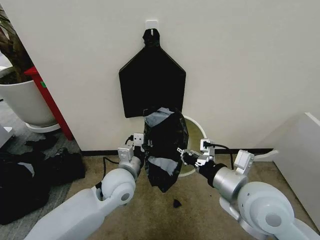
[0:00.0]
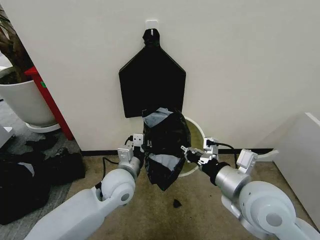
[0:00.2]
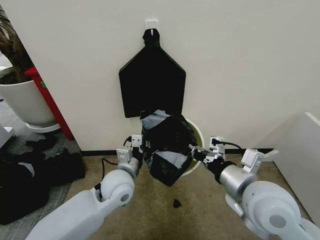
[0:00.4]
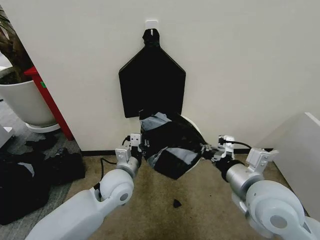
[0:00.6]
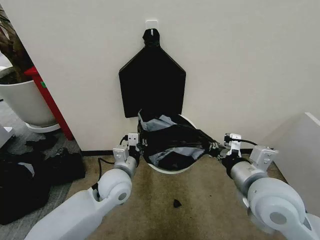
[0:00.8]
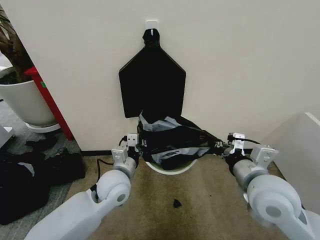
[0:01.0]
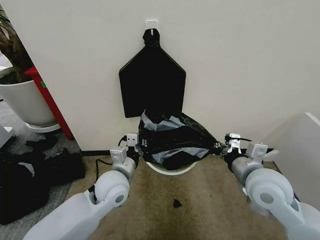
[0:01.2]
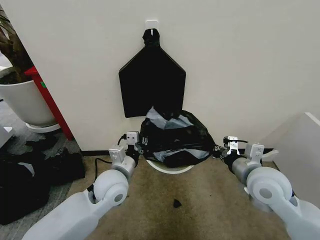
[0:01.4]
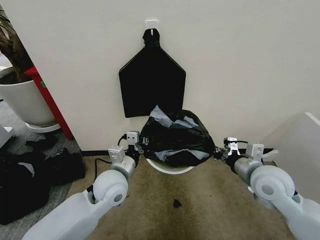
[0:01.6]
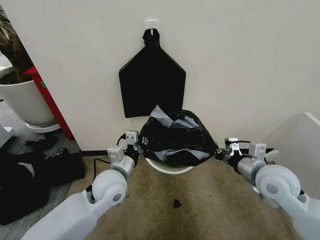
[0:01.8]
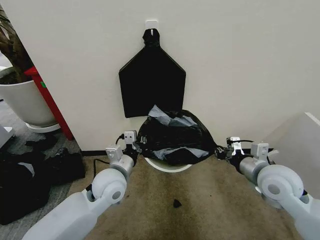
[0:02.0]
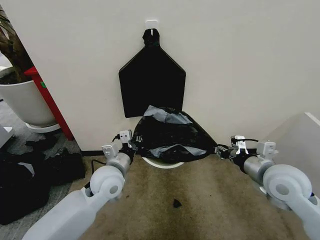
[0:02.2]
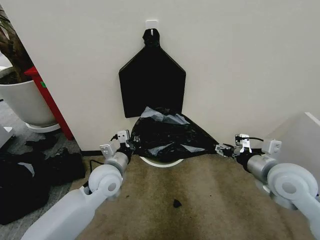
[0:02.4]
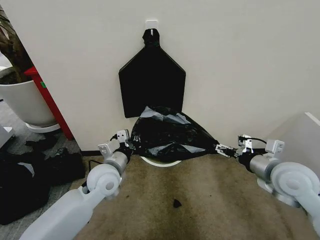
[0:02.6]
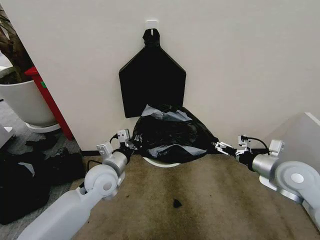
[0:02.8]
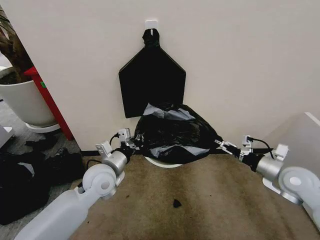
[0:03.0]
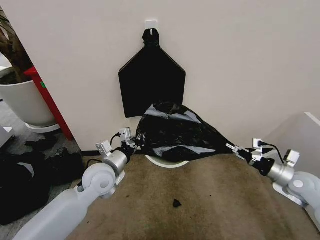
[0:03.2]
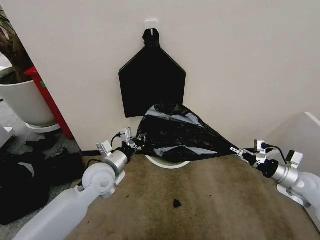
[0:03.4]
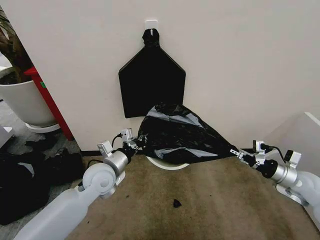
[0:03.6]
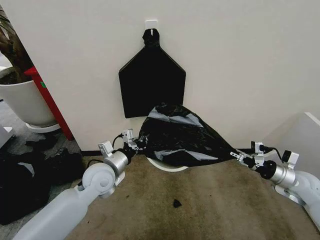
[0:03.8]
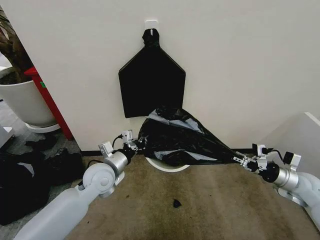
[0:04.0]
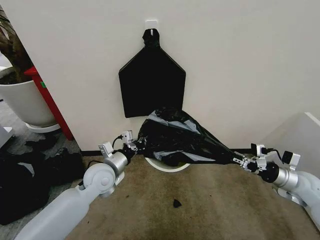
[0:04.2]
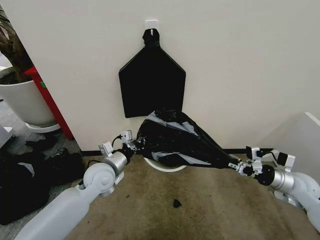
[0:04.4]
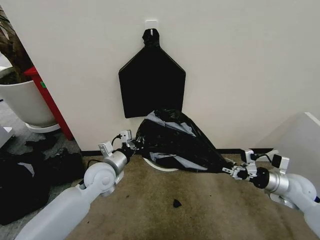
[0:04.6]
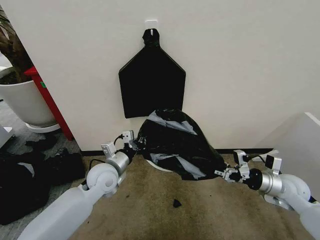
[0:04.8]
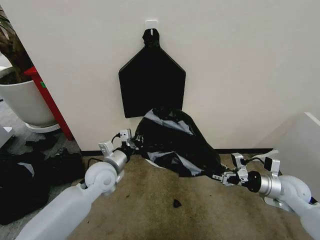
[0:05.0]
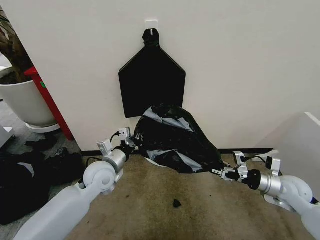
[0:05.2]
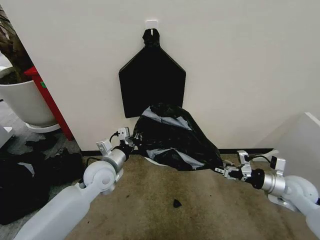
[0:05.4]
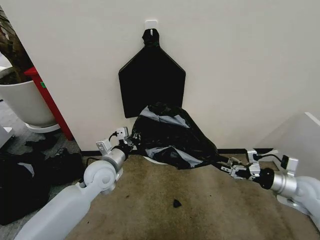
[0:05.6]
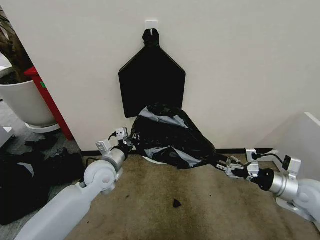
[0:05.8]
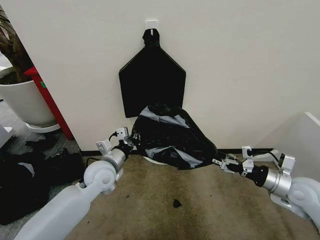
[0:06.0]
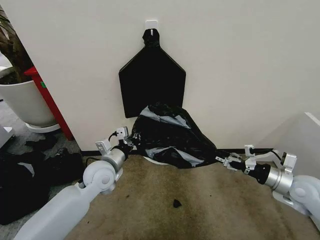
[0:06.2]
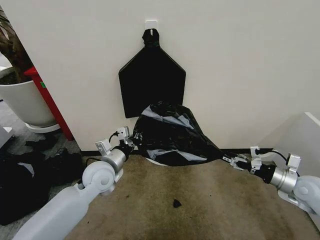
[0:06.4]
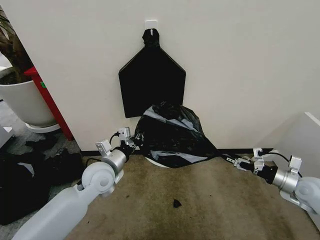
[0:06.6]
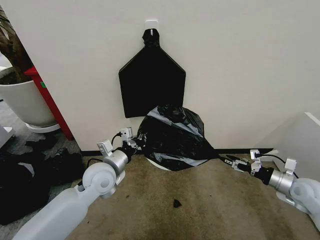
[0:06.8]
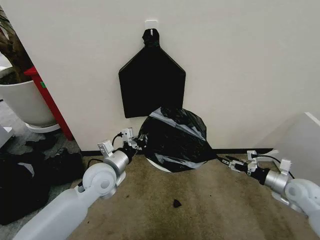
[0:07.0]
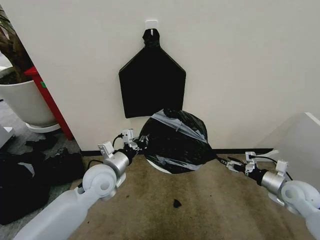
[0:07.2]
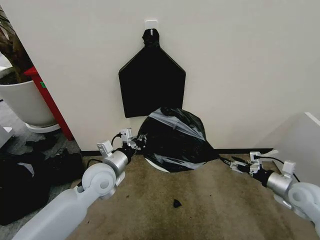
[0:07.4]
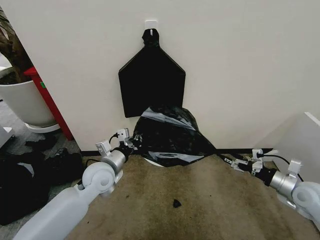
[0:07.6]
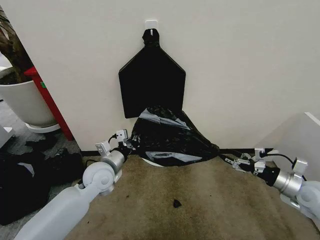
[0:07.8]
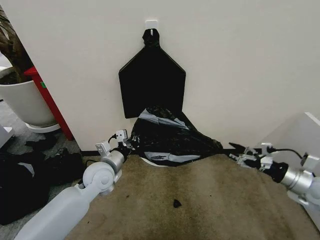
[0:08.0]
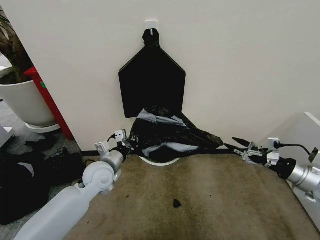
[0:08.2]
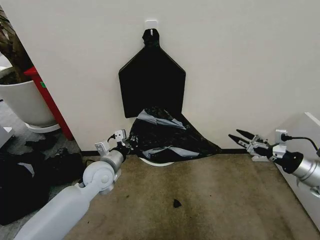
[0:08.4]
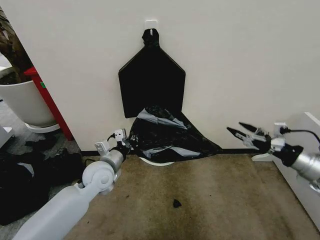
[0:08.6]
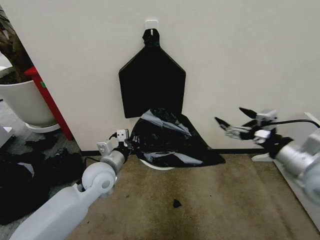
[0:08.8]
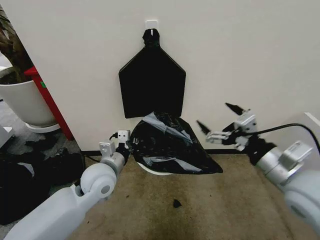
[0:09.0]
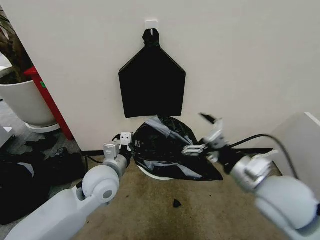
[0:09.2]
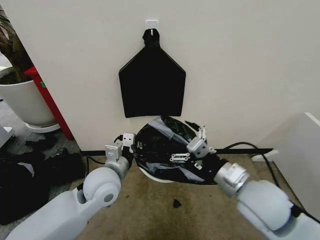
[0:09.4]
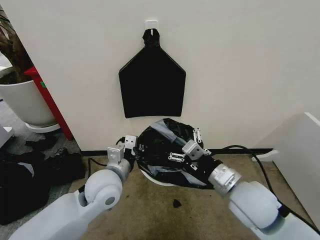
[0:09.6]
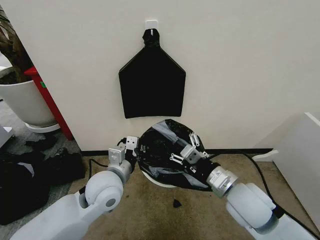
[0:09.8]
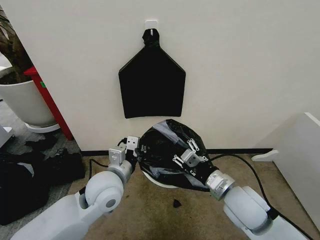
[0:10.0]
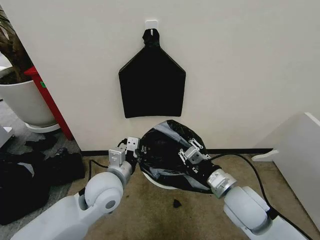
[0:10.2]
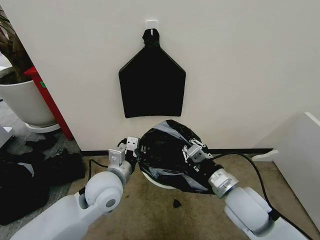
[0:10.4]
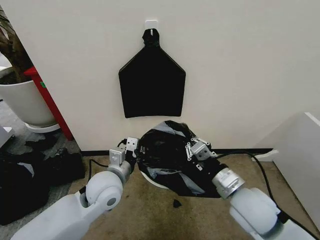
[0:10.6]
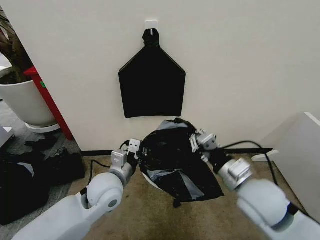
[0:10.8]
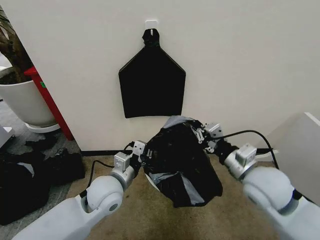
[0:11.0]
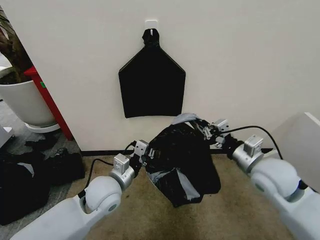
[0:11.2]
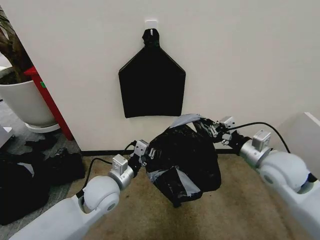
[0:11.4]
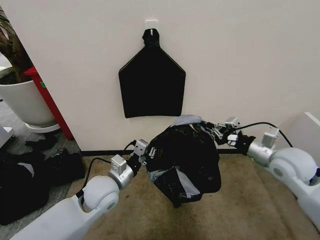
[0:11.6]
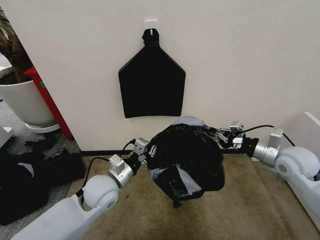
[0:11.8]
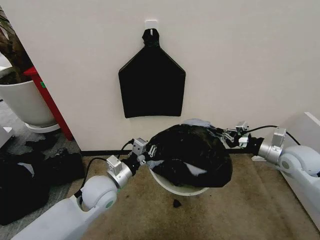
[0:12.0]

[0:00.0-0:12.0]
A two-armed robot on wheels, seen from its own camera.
Task of the whole recording: Place the garbage bag over the trash bin.
0:00.0 to 0:01.6: The right gripper travels to the right and forward by some 10 cm.
0:01.6 to 0:03.0: The right gripper moves to the right, approximately 10 cm, and opens its fingers.
0:03.0 to 0:04.4: The right gripper moves downward and to the right, roughly 10 cm.
0:04.4 to 0:06.0: The right gripper travels upward by some 5 cm.
0:06.0 to 0:07.6: The right gripper is displaced to the right by some 5 cm.
0:07.6 to 0:09.0: The right gripper moves upward and to the left, some 25 cm.
0:09.0 to 0:10.4: The right gripper shifts some 15 cm downward and to the left, and closes up.
0:10.4 to 0:12.0: The right gripper is displaced to the right and forward by approximately 25 cm. Meanwhile the left gripper shifts some 5 cm downward.

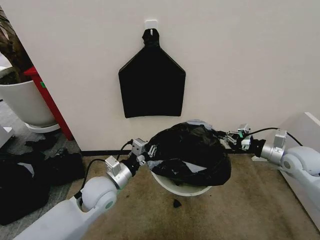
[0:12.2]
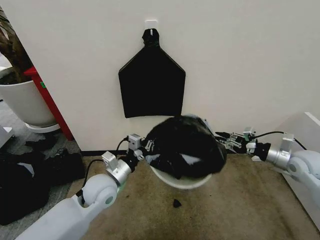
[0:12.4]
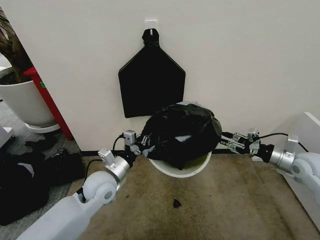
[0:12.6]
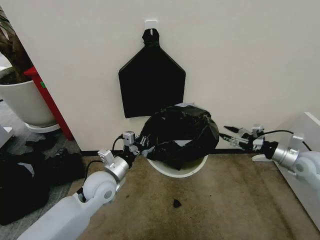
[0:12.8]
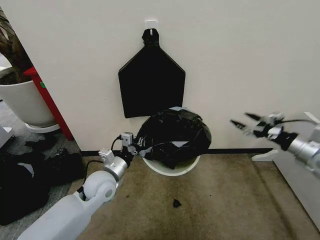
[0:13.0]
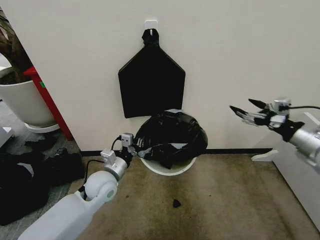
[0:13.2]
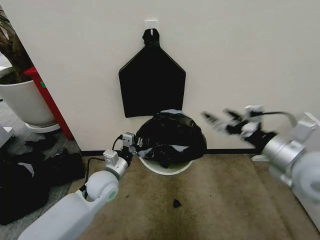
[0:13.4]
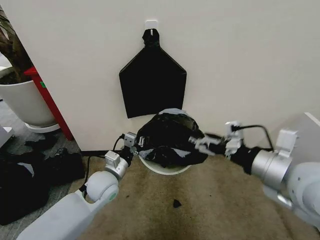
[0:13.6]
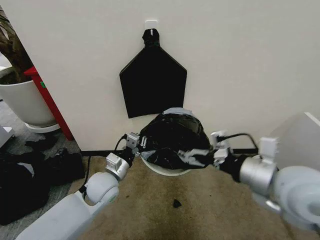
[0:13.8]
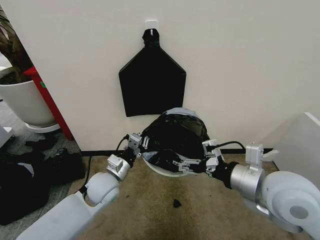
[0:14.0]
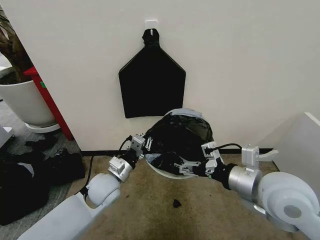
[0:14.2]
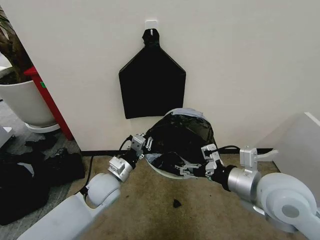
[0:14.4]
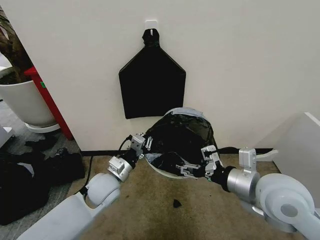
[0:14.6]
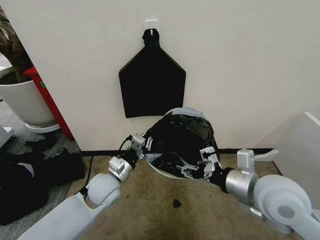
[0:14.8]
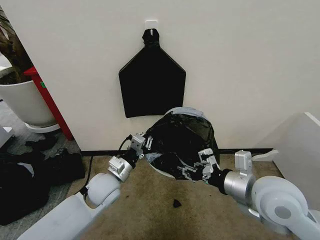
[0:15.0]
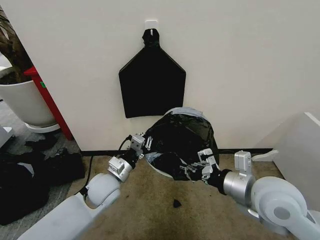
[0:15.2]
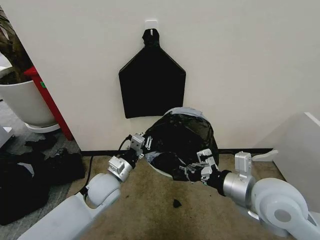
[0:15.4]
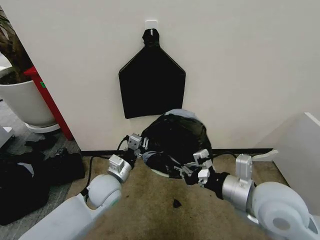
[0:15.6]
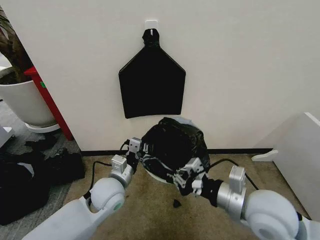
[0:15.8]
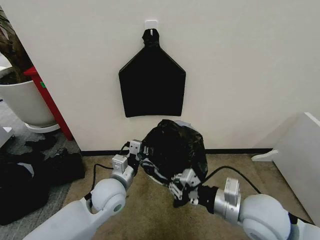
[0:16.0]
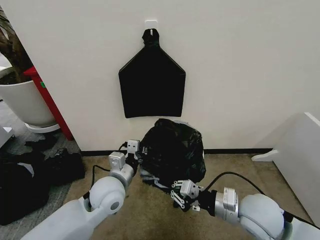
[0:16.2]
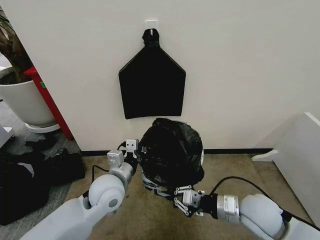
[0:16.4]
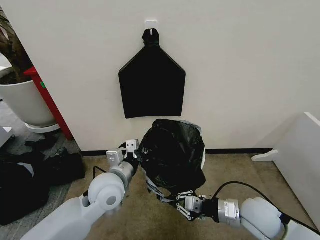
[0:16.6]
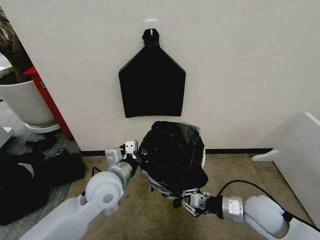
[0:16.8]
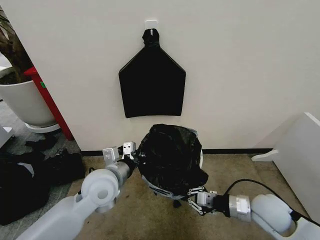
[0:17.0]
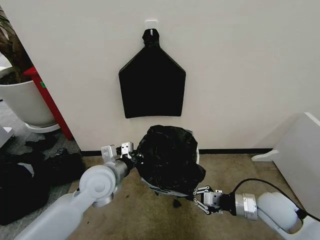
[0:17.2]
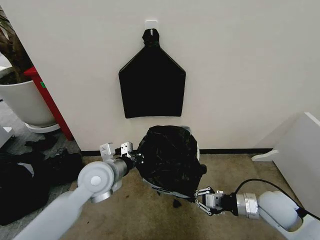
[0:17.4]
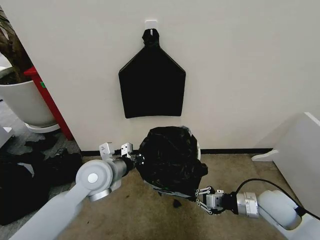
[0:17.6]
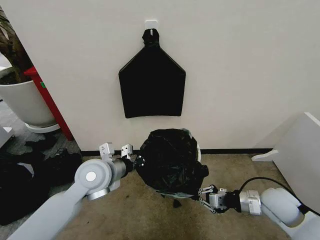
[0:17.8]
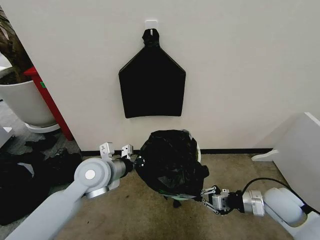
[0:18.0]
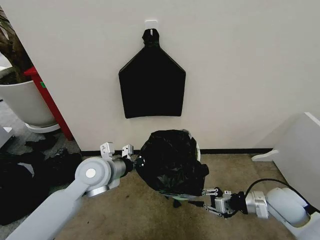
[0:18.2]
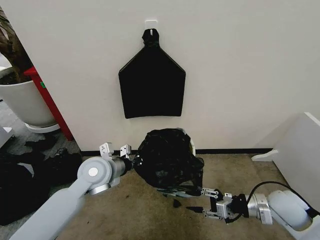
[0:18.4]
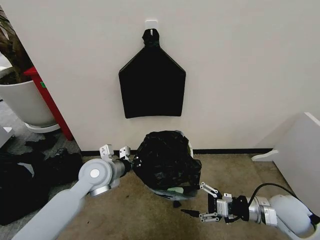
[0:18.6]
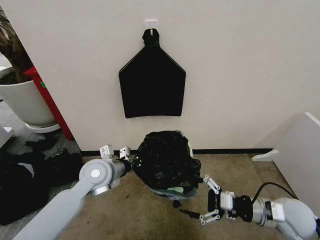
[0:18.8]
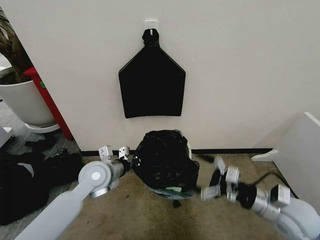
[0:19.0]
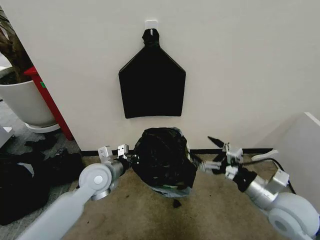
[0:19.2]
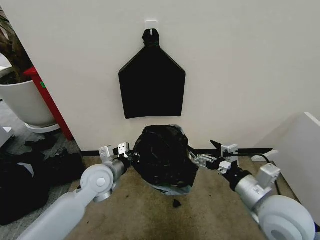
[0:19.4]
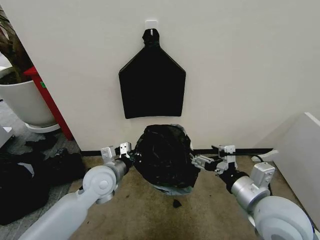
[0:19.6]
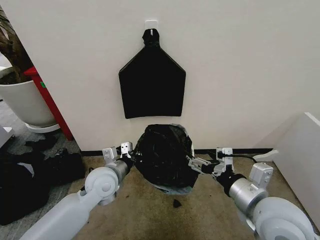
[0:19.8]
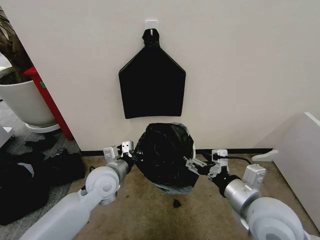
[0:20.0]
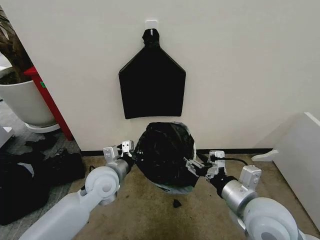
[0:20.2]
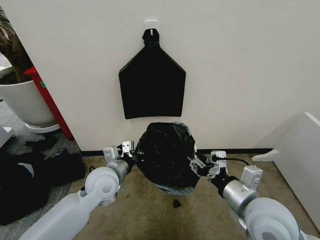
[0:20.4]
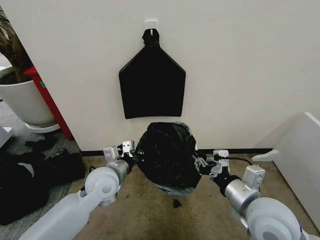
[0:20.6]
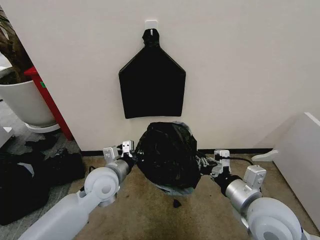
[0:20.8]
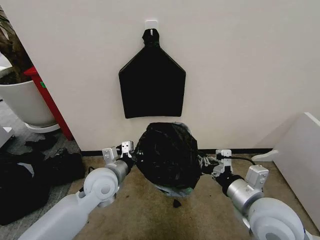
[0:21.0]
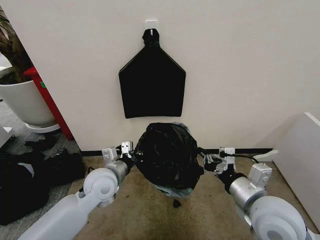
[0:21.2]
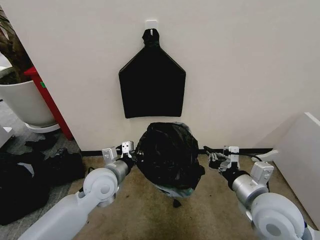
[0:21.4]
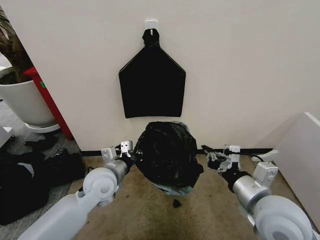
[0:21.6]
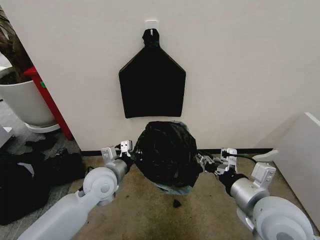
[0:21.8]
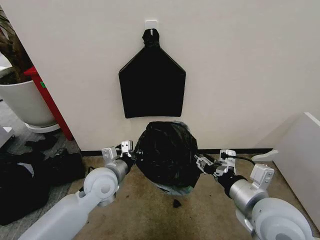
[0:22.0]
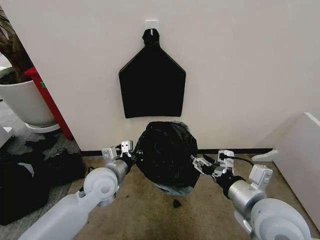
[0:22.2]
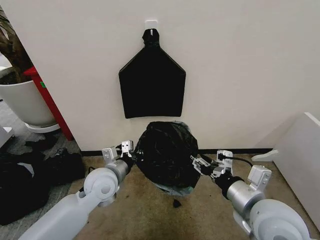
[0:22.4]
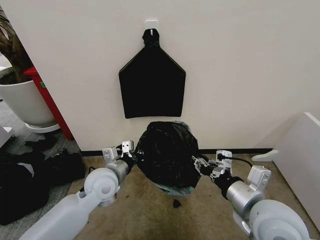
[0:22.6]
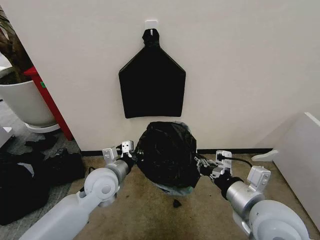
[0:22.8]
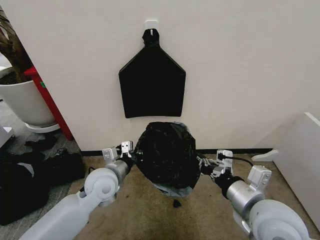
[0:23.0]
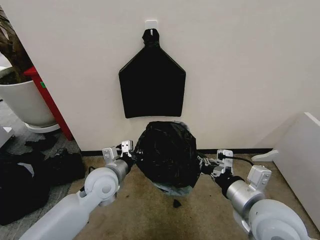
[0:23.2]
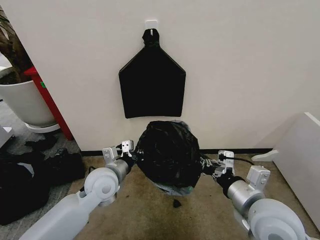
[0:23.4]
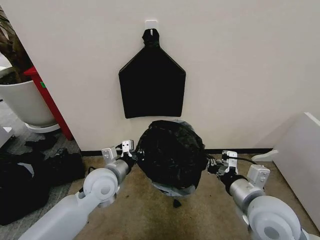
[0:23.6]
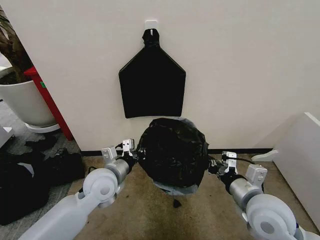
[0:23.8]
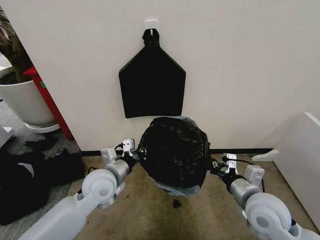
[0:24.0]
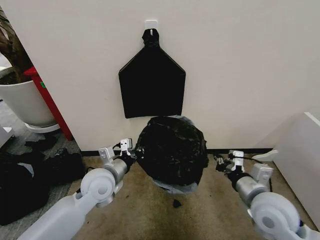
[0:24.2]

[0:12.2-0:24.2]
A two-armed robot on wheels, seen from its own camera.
Task of the whole recording: Place the garbage bag over the trash bin.
0:12.2 to 0:13.8: The right gripper moves to the left, backward and upward, about 25 cm, and opens its fingers.
0:13.8 to 0:15.2: The right gripper goes some 5 cm downward, and closes.
0:15.2 to 0:16.6: The right gripper moves downward, about 15 cm. Meanwhile the left gripper shifts some 5 cm upward.
0:16.6 to 0:18.2: The right gripper is displaced to the right by about 10 cm; the left gripper shifts by roughly 5 cm.
0:18.2 to 0:19.8: The right gripper moves upward, to the left and backward, about 20 cm, and opens up.
0:19.8 to 0:21.2: The right gripper closes its fingers.
0:21.2 to 0:22.6: The right gripper opens, then closes again.
0:22.6 to 0:24.2: The right gripper travels downward by approximately 5 cm.
